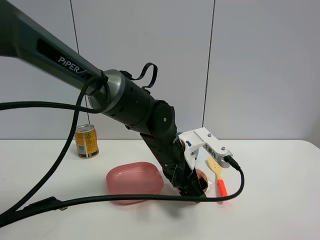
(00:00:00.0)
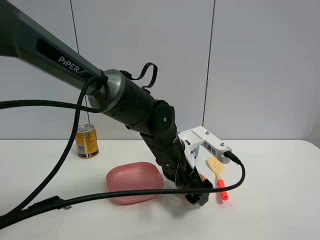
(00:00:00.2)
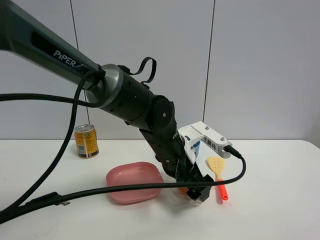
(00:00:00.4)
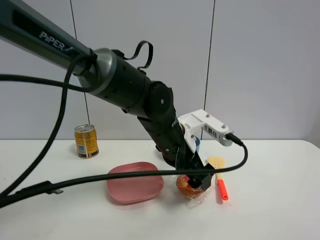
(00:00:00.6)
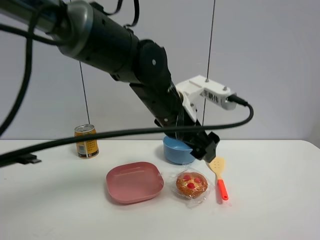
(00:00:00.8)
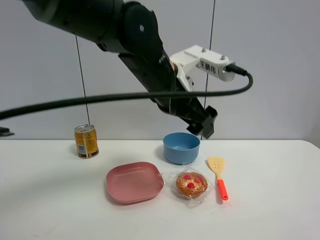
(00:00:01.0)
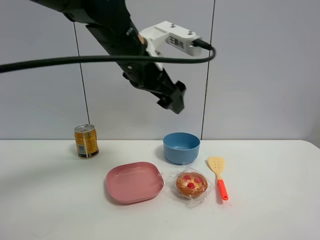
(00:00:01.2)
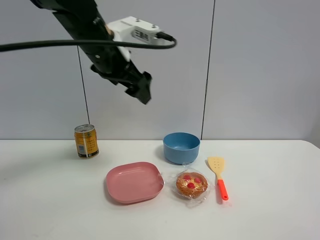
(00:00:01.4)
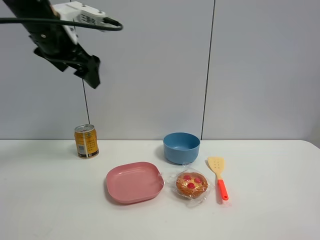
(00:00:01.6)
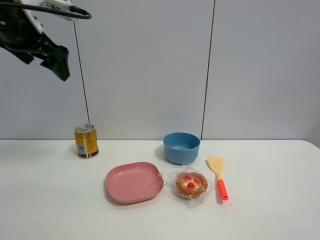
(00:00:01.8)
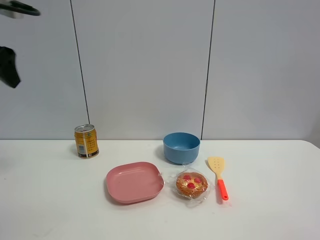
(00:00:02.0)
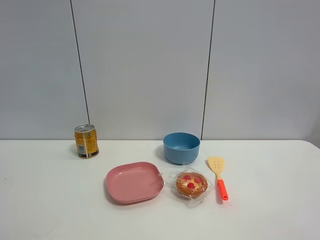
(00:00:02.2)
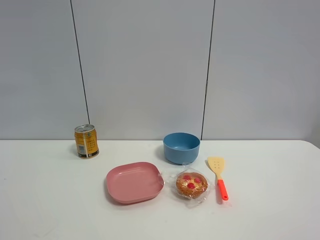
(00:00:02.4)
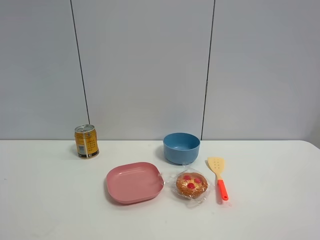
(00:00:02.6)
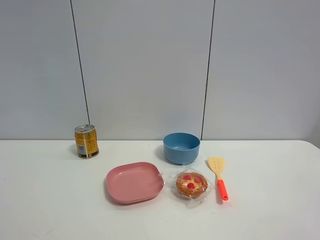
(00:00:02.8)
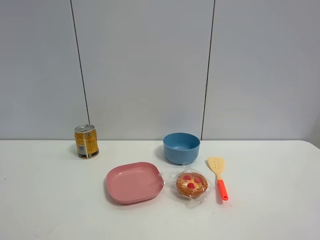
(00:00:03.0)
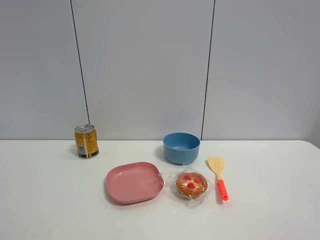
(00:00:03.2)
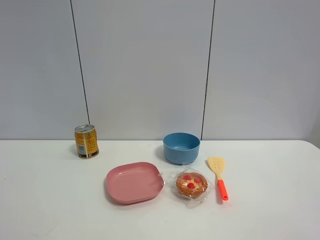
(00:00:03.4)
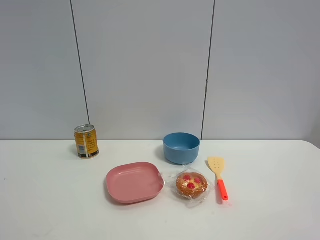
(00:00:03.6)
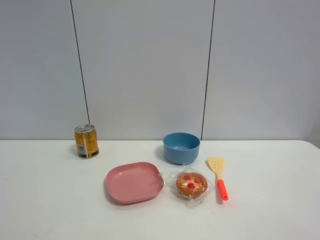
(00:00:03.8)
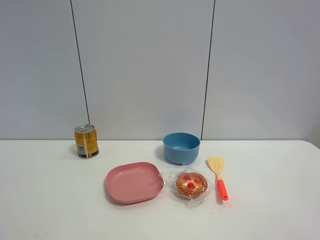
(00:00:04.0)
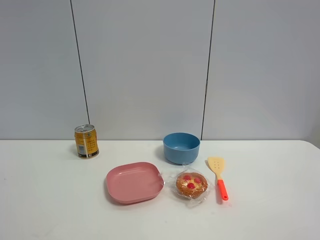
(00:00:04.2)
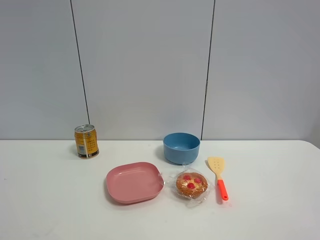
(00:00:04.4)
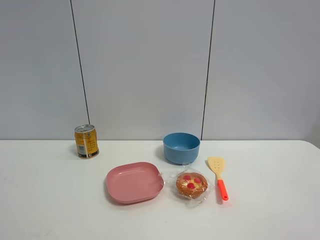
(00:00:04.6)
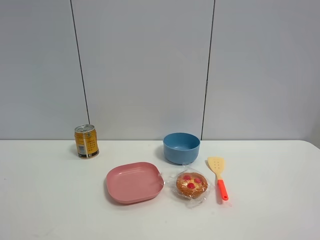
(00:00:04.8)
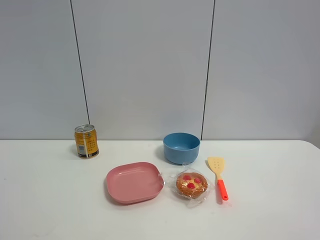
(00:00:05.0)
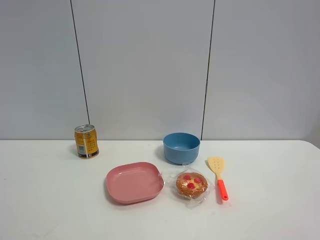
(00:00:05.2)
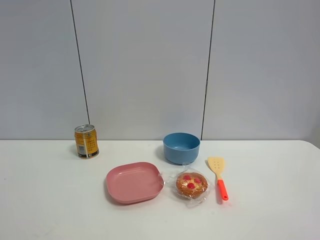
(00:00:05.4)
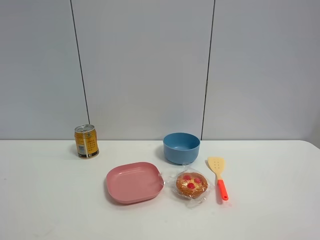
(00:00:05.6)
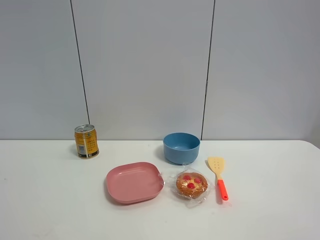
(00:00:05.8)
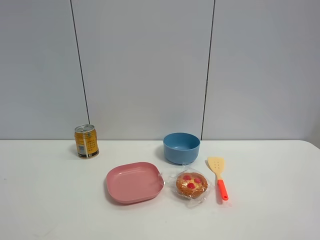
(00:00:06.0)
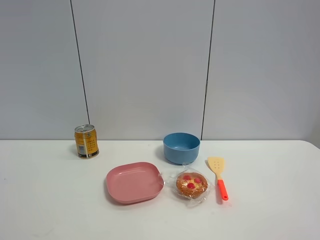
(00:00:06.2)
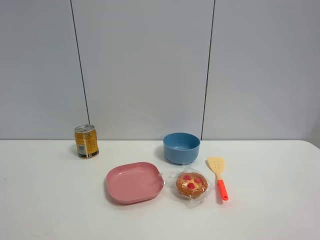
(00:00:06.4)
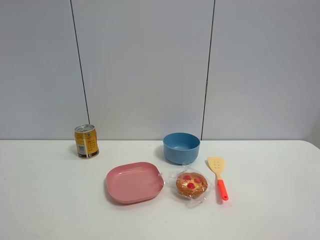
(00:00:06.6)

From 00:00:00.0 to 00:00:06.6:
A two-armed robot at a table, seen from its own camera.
Task of the whole recording: the gripper move the object.
From 00:00:00.0 to 00:00:01.6: The left gripper heads to the left and upward, covering roughly 35 cm.
From 00:00:01.6 to 00:00:03.2: The left gripper heads backward, covering some 40 cm.
From 00:00:05.0 to 00:00:06.6: The two grippers keep their place.

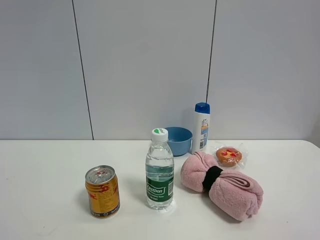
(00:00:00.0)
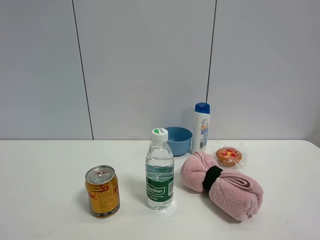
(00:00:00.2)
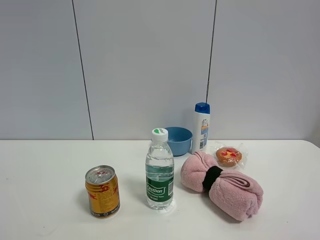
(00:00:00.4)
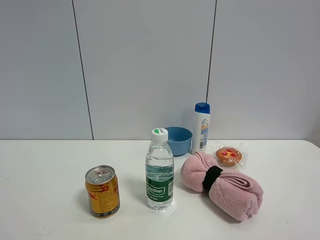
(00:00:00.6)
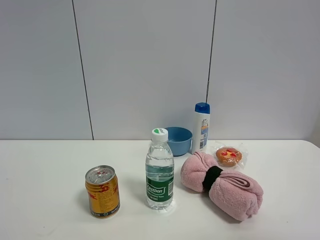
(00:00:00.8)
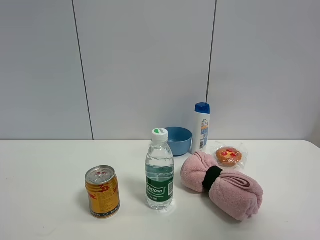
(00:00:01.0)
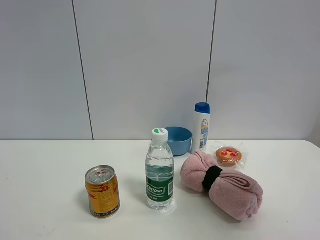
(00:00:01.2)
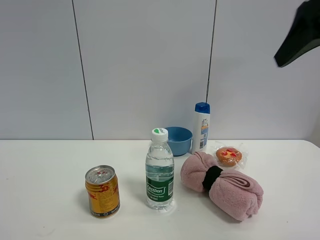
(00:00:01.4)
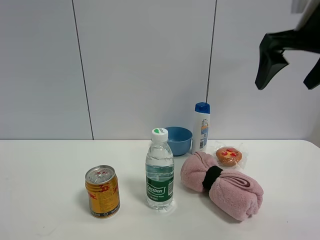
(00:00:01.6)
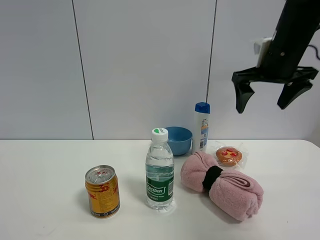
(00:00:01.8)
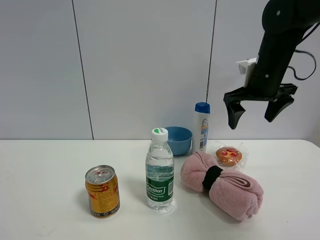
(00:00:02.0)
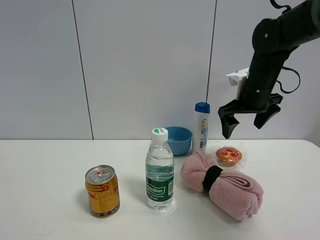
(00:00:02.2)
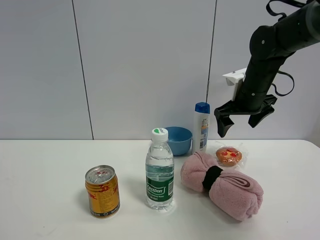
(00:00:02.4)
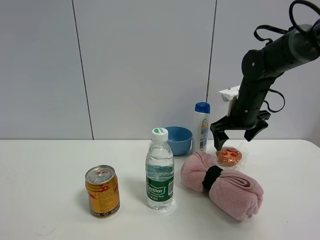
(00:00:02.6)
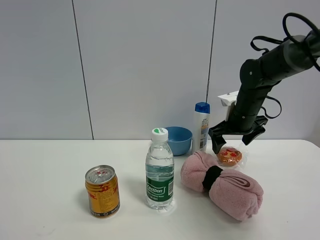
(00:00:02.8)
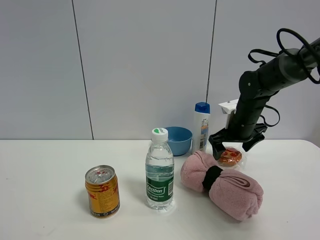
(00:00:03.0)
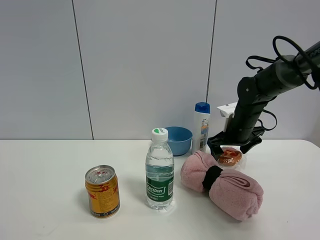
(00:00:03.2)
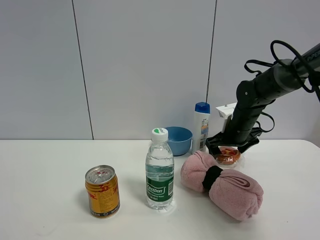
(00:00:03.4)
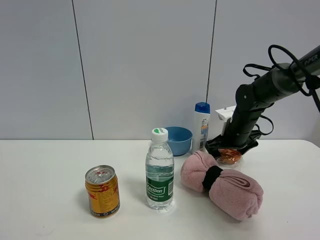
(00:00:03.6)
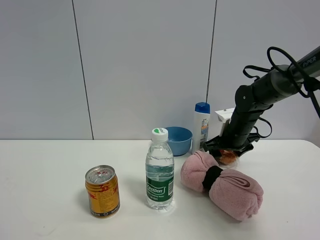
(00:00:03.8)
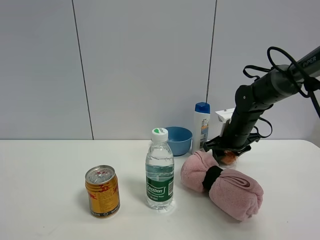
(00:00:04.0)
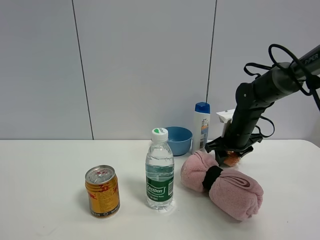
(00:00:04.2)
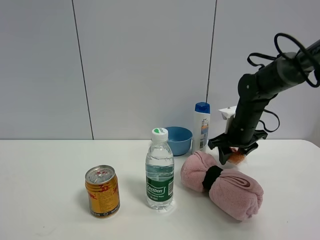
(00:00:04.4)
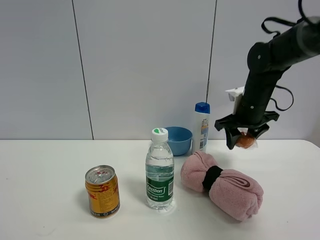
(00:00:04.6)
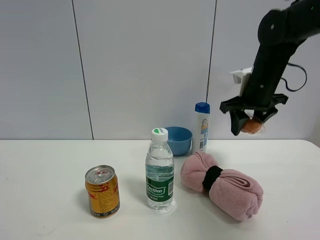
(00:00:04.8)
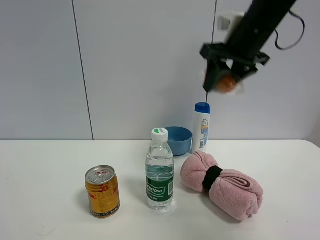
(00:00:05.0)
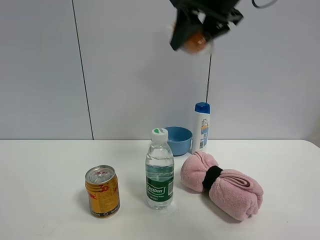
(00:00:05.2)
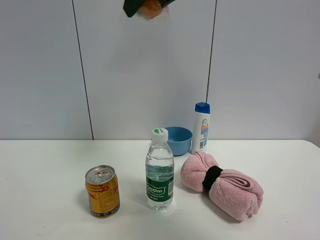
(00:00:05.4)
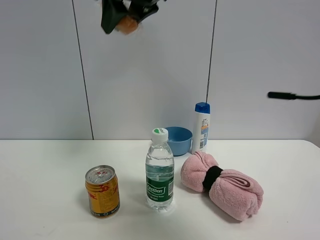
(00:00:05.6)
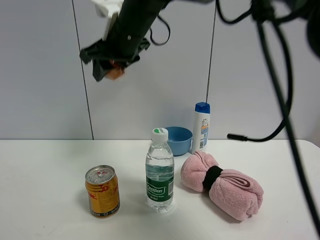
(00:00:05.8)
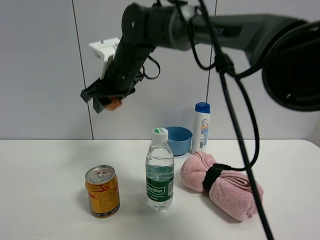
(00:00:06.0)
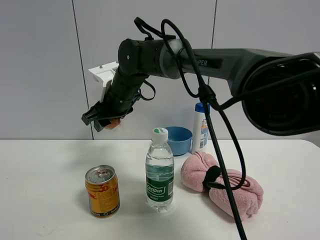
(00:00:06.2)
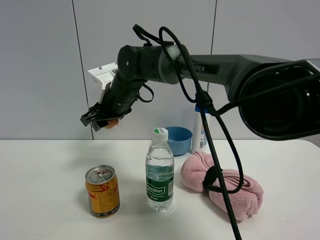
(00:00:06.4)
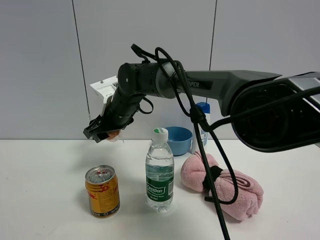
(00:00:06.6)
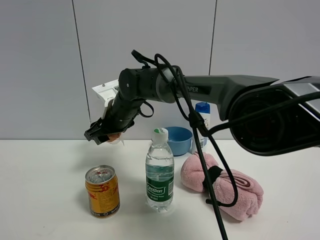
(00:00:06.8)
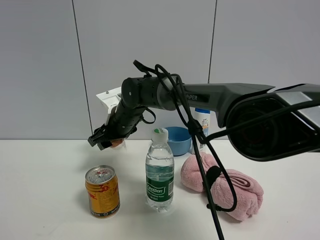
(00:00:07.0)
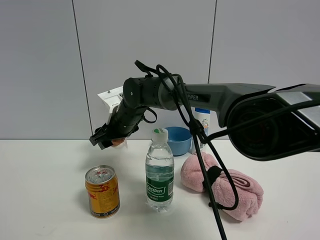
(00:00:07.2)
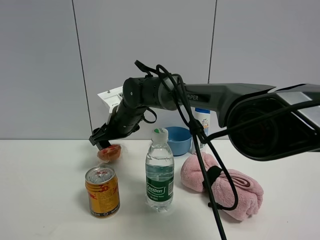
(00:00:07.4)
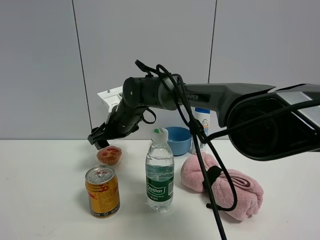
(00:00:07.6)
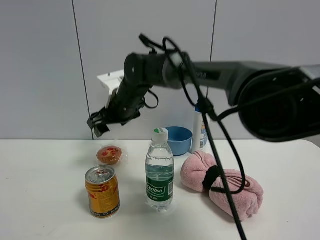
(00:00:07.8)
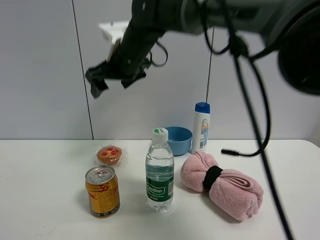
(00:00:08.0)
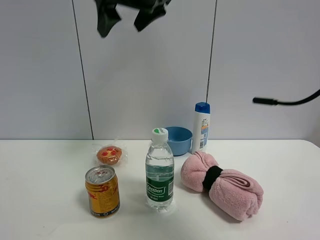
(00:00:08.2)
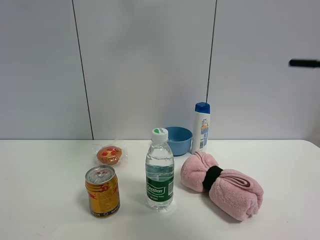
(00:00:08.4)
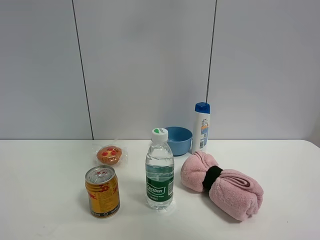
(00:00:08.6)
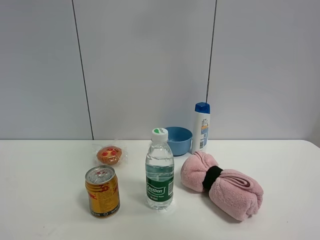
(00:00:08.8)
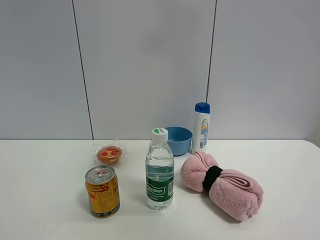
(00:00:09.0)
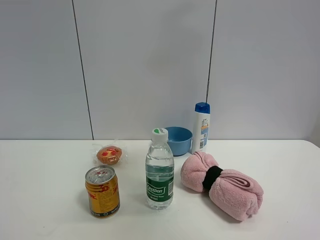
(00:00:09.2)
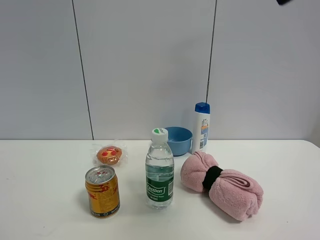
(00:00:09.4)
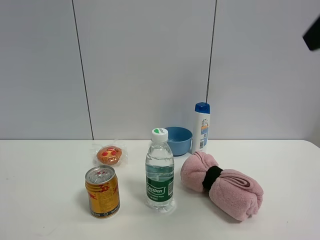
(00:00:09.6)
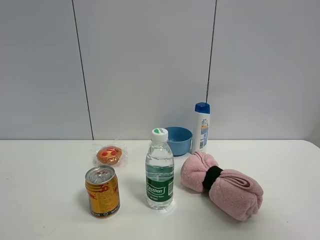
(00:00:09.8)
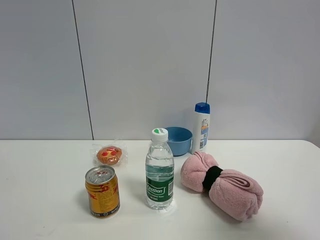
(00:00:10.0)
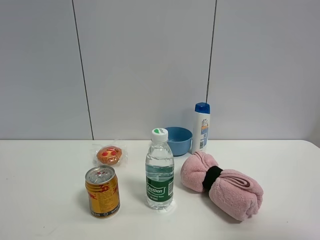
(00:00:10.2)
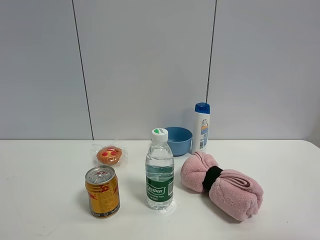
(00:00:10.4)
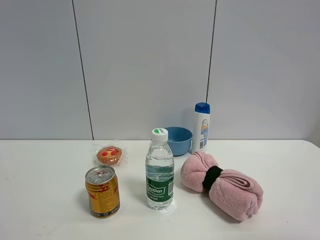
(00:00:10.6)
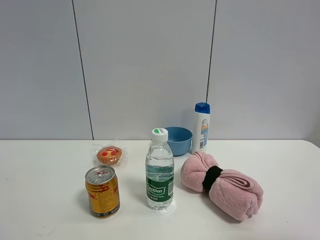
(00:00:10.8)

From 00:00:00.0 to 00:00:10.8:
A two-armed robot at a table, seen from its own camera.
Task of the whole recording: the gripper move the object.
Step, from 00:00:00.0 to 00:00:04.0: Grasp the egg tart with the right gripper.
Step, from 00:00:04.2 to 00:00:07.8: Place the egg tart on the table with the right gripper.
From 00:00:01.6 to 00:00:03.0: The right gripper moves downward and forward, roughly 30 cm.
From 00:00:03.0 to 00:00:04.6: The right gripper closes its fingers.
From 00:00:04.6 to 00:00:06.2: The right gripper moves to the left, roughly 30 cm.
From 00:00:06.2 to 00:00:07.8: The right gripper goes approximately 5 cm downward, and opens.
From 00:00:07.8 to 00:00:09.2: The right gripper is displaced upward, to the right and backward by some 50 cm.
From 00:00:09.2 to 00:00:10.8: The right gripper travels downward, backward and to the right by approximately 30 cm.

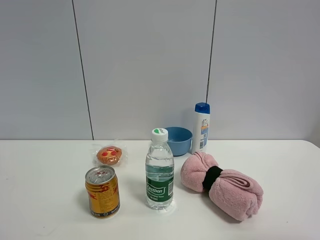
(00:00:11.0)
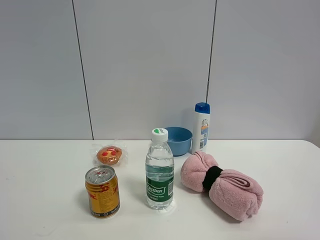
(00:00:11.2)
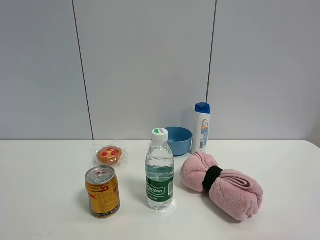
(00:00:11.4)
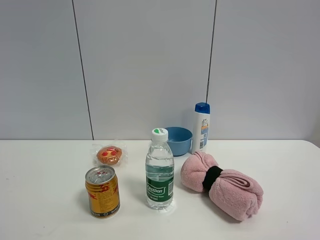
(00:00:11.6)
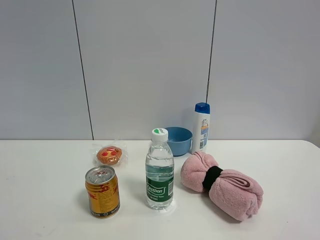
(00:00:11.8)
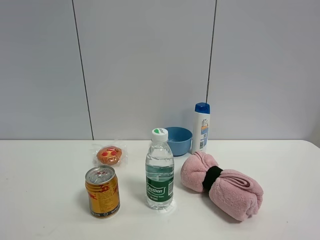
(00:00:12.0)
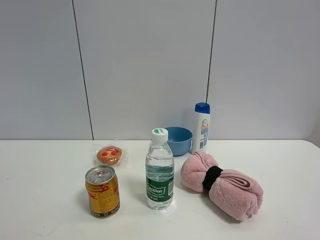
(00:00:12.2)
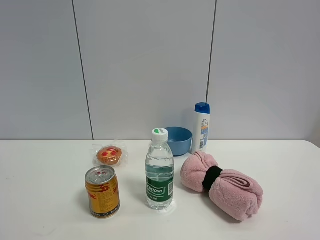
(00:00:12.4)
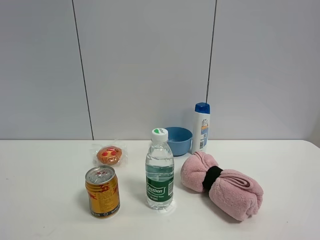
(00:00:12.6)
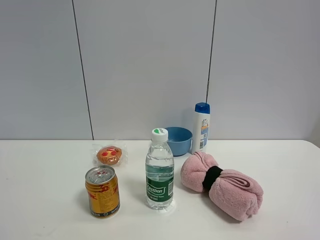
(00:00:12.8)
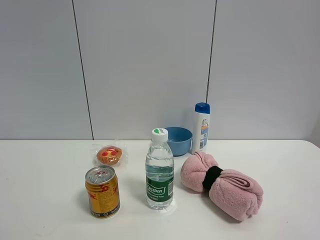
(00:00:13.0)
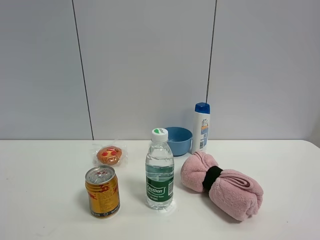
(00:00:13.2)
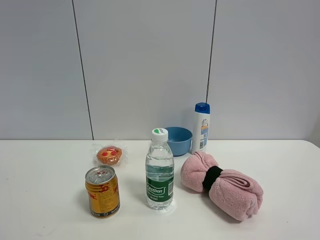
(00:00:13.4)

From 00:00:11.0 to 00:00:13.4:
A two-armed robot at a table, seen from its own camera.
Task of the whole recording: the gripper move the object.
From 00:00:12.2 to 00:00:13.4: Both grippers stay put.
